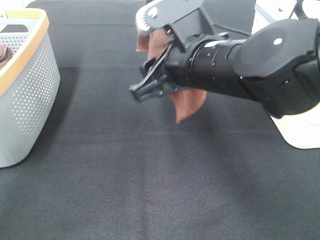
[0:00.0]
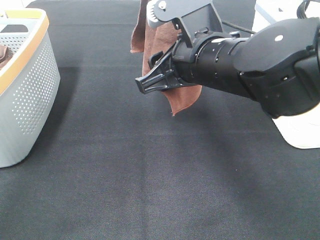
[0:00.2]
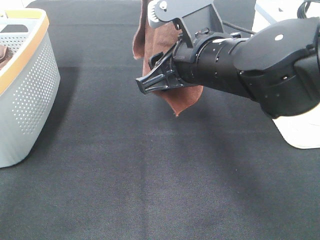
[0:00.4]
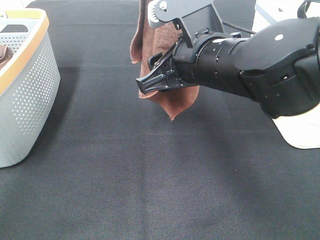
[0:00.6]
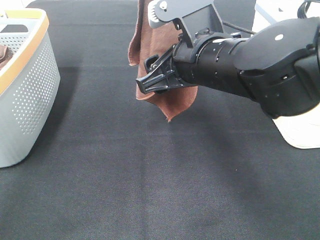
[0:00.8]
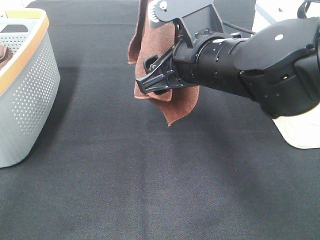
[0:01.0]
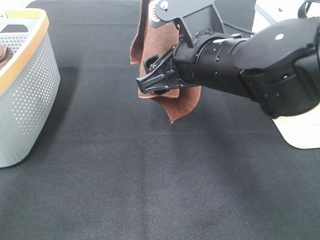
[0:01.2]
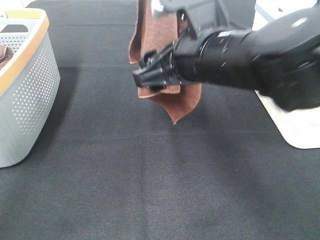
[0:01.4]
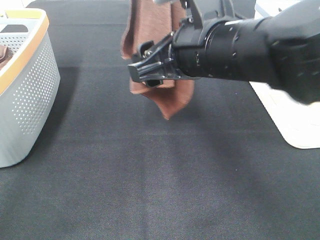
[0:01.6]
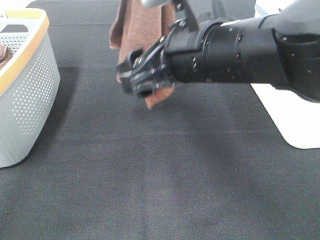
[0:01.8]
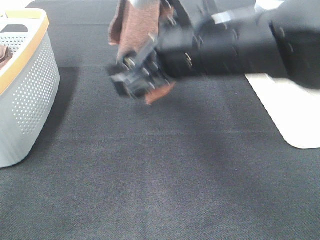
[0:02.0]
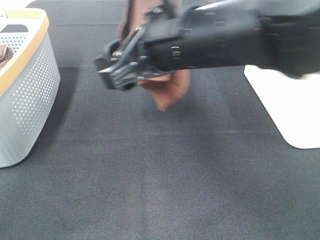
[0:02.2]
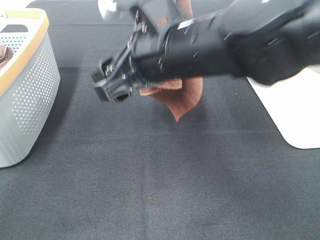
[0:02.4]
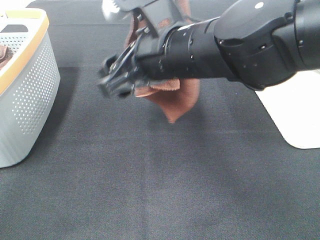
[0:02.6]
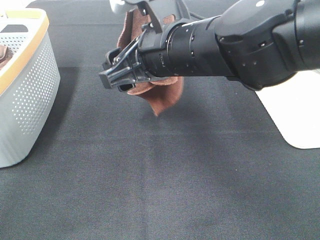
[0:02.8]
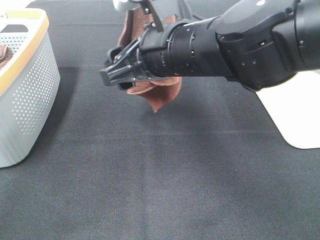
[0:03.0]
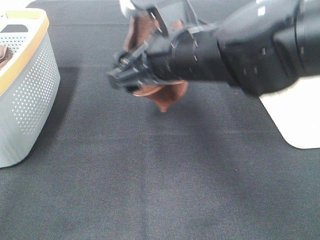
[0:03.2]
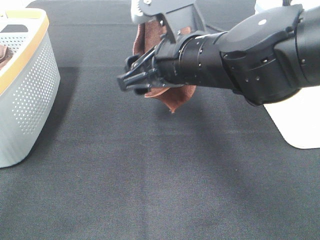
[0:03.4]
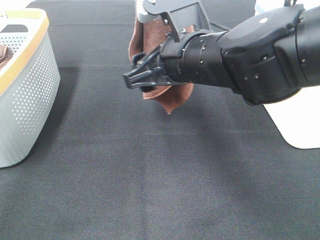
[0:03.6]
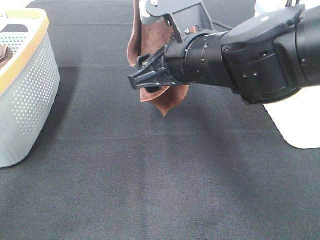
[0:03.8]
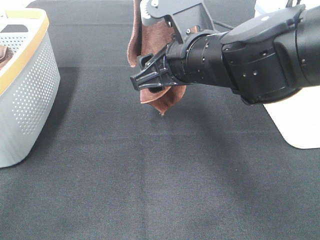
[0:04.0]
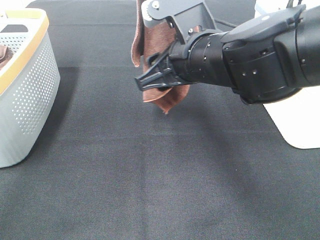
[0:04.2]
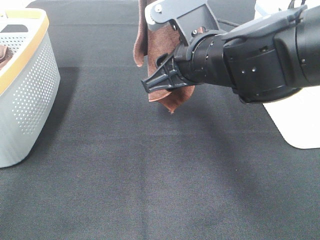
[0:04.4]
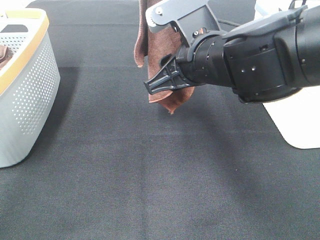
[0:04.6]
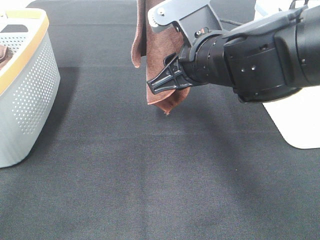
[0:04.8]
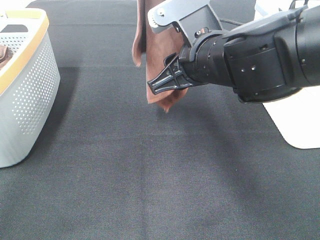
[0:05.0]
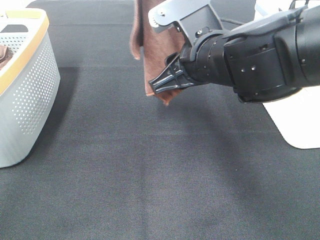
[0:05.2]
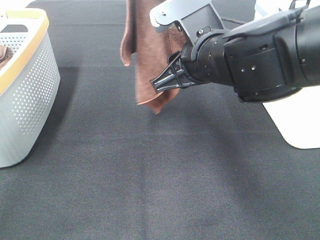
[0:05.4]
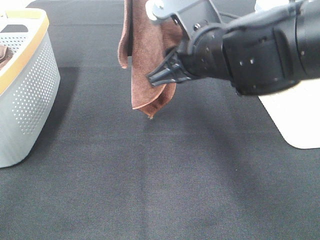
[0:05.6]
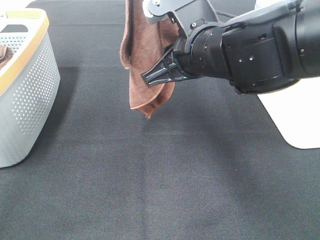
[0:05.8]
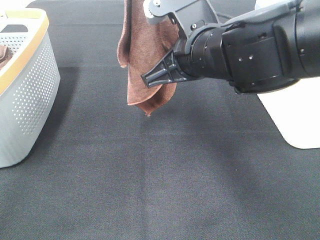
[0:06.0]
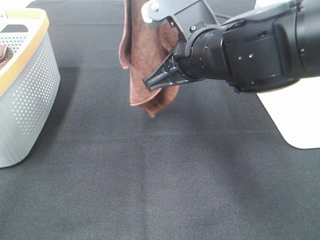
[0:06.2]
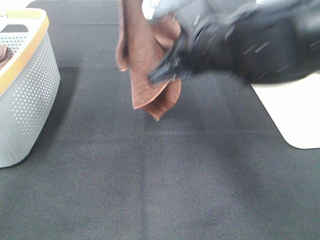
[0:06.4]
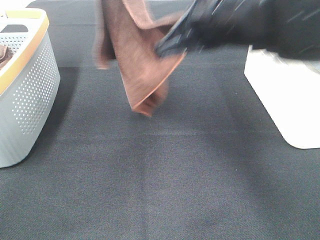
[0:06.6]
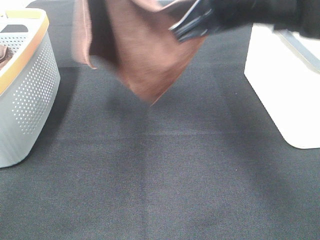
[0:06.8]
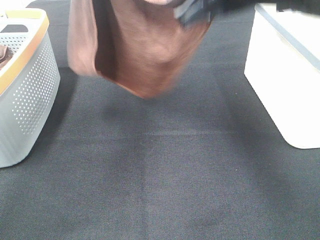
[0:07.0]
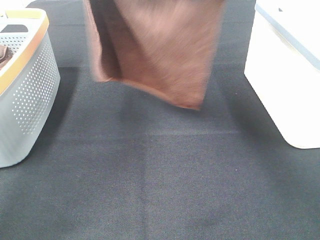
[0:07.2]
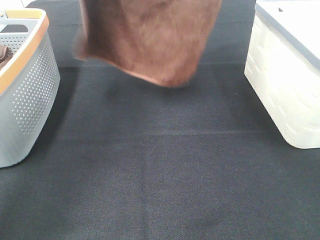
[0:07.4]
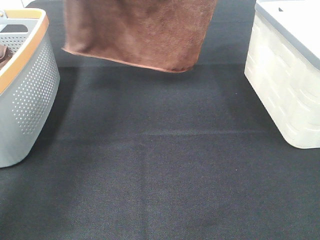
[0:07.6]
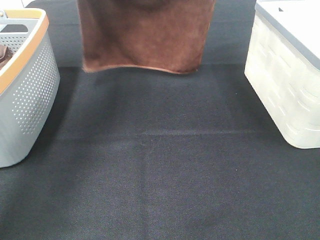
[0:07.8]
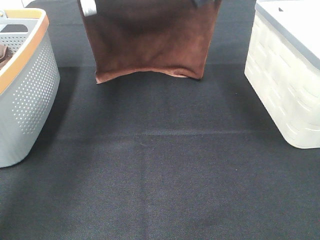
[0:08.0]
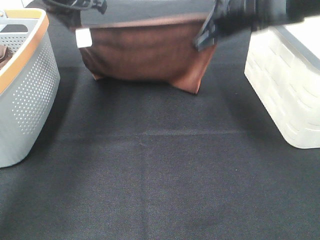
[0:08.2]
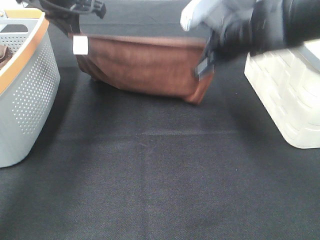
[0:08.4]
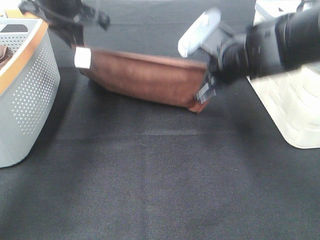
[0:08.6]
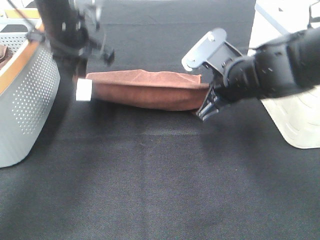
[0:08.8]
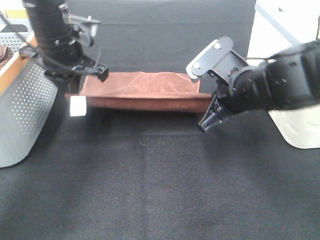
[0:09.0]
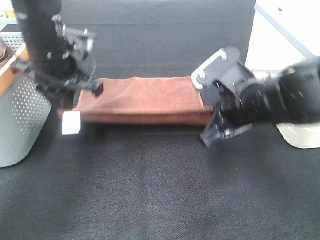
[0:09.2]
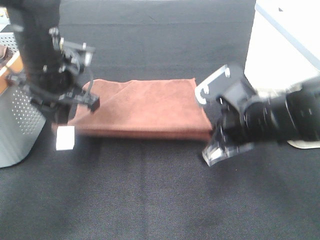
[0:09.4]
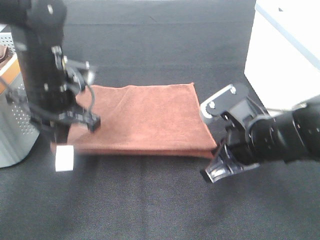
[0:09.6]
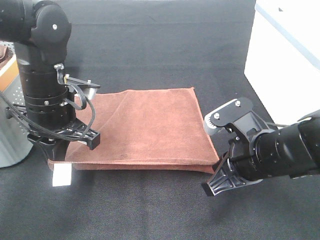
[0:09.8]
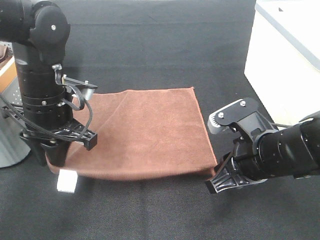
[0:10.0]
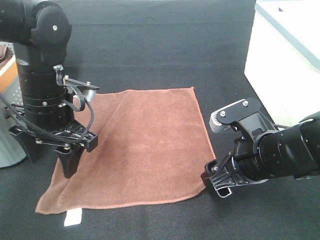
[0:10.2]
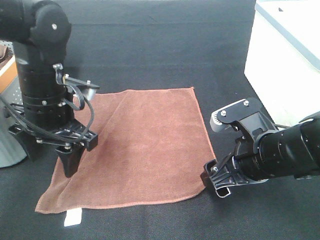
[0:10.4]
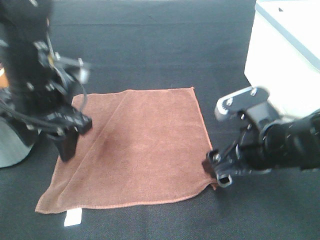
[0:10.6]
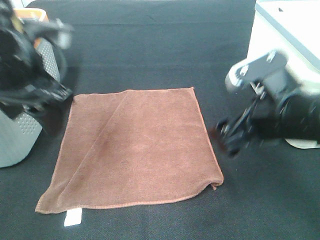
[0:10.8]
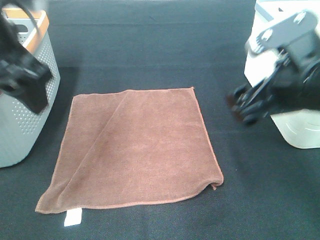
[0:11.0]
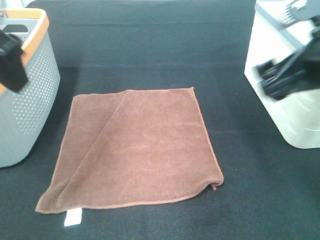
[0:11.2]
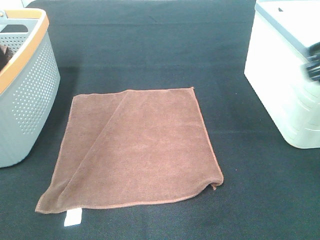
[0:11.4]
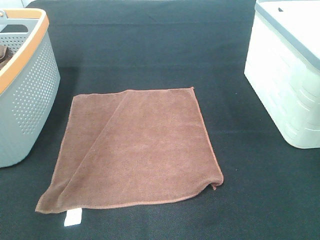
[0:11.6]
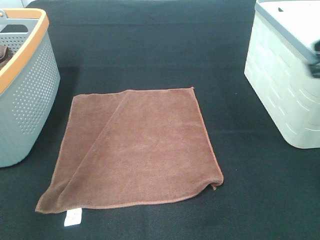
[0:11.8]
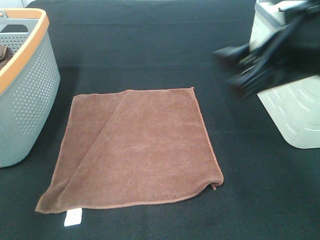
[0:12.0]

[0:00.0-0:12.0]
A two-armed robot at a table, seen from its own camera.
Task of the whole recording: Remove the towel and place it.
Step, 0:00.0 to 0:03.0: Right hand: grab a corner of the brown towel and straighten it.
Step, 0:03.2 to 0:05.4: Left hand: spread the brown towel flat on the table.
Step, 0:03.2 to 0:05.4: Right hand: spread the brown towel flat on the table.
0:00.0 to 0:03.0: There are only small adjustments of the grippers.
0:04.4 to 0:06.0: The right gripper closes.
0:06.0 to 0:07.6: The right gripper heads forward, upward and to the right, covering approximately 20 cm; the left gripper shifts some 20 cm forward, downward and to the left.
0:07.6 to 0:09.0: The grippers both shift downward and backward by approximately 20 cm.
0:09.0 to 0:10.4: Both grippers move backward, some 10 cm. The left gripper opens its fingers; the right gripper opens up.
0:10.4 to 0:12.0: The right gripper travels upward by approximately 15 cm, while the left gripper heads upward and backward, covering some 25 cm.

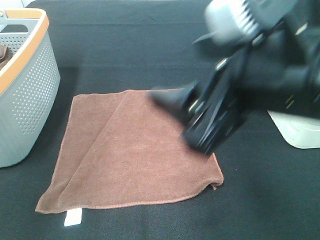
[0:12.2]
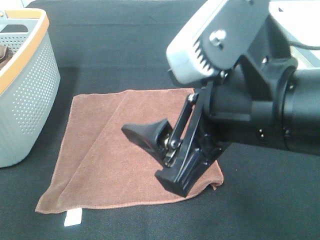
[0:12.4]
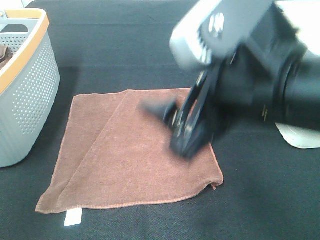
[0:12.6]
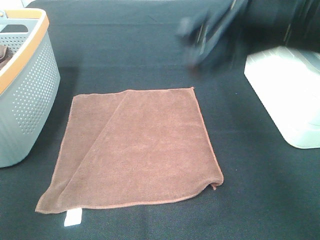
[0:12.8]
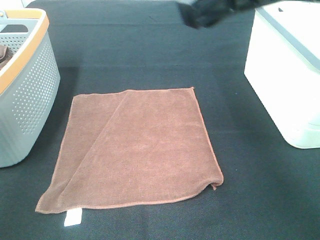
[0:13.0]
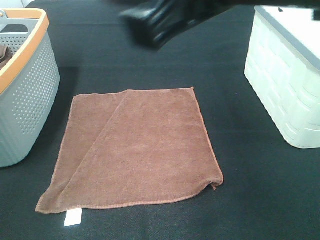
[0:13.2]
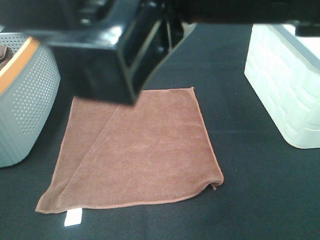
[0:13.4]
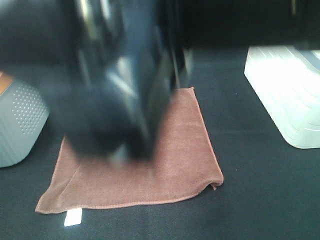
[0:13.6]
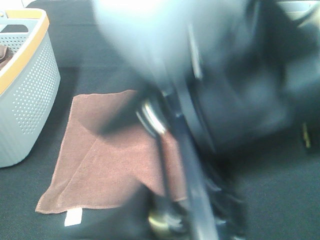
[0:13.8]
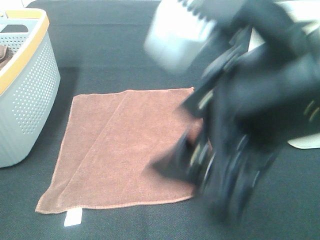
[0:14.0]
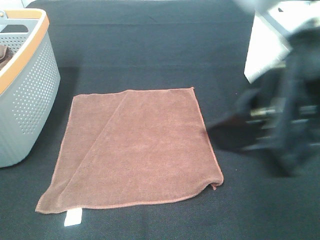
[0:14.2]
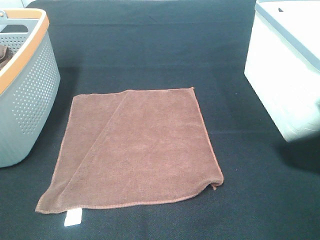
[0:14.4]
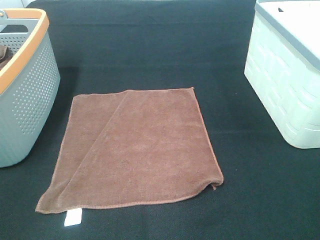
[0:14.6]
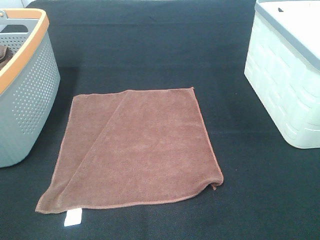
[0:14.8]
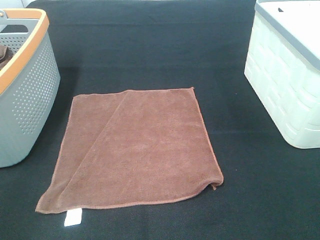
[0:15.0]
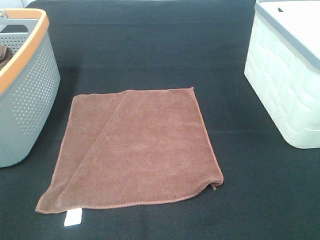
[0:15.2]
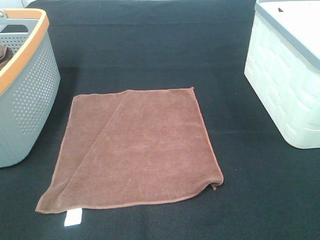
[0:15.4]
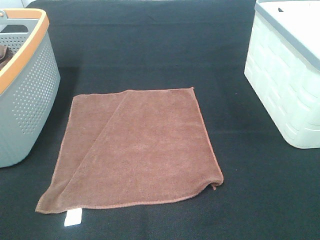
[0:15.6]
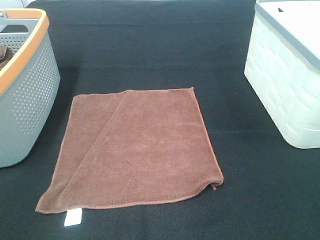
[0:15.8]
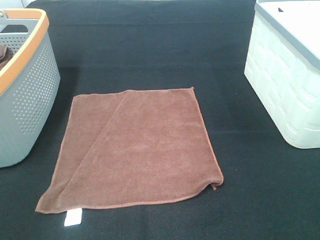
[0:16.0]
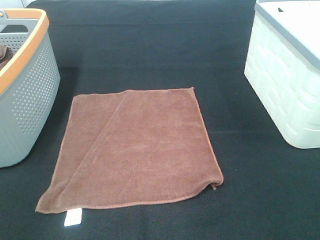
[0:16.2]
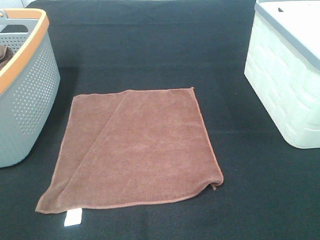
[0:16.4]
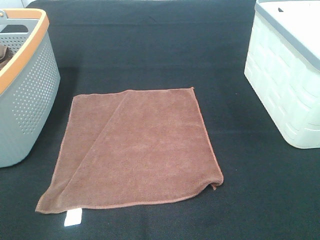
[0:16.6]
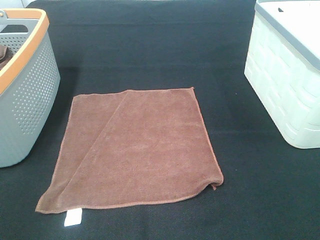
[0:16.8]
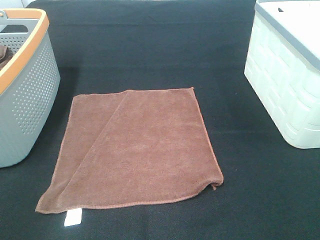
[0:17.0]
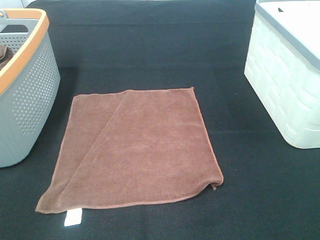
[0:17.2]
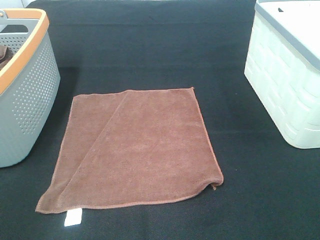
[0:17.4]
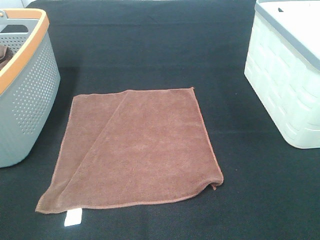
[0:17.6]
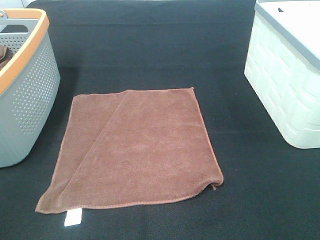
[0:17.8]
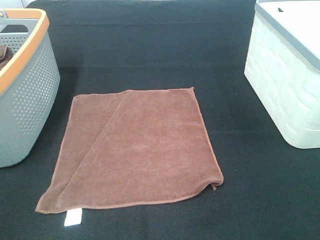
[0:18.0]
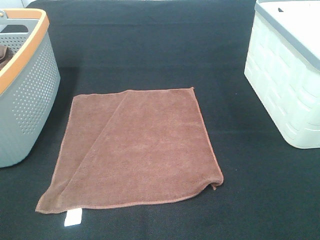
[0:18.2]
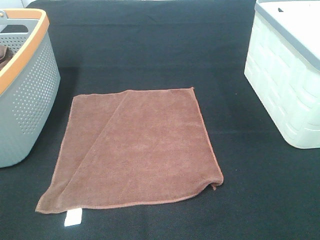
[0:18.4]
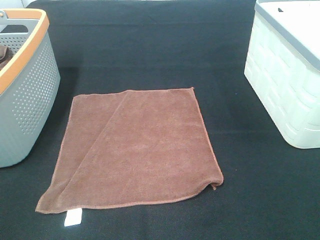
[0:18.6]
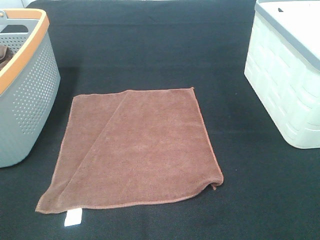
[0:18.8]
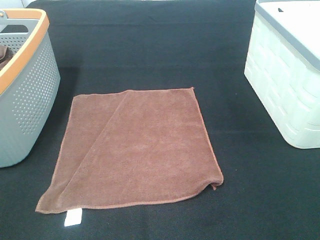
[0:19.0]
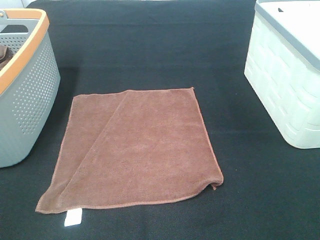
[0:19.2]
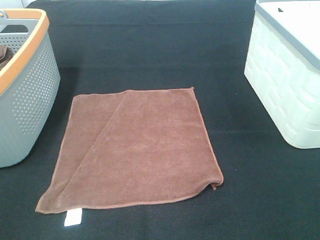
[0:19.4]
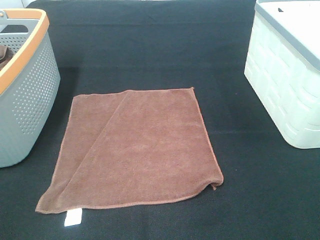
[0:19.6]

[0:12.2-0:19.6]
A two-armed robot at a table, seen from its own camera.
Task of the whole recording: Remove the towel and place it.
0:12.2 to 0:13.6: The right gripper travels upward and to the left by about 10 cm, while the left gripper travels backward and to the left by approximately 20 cm.
0:13.6 to 0:15.2: The left gripper heads downward, covering roughly 20 cm. The right gripper is displaced to the right by roughly 25 cm.
